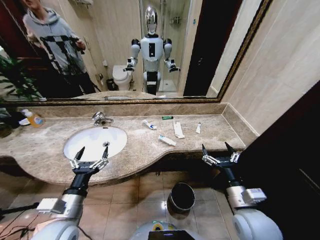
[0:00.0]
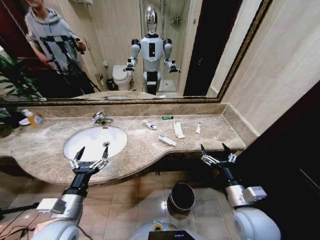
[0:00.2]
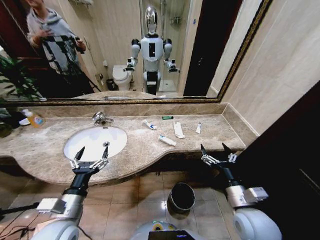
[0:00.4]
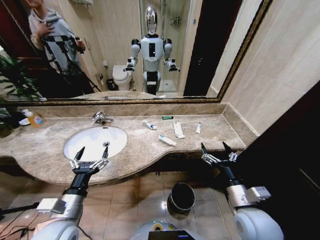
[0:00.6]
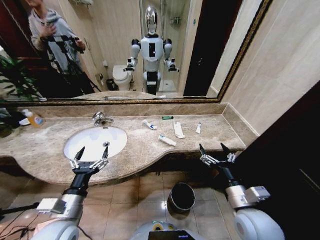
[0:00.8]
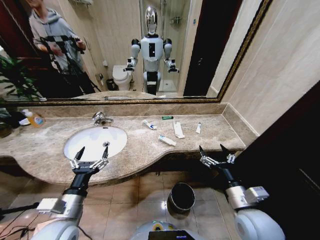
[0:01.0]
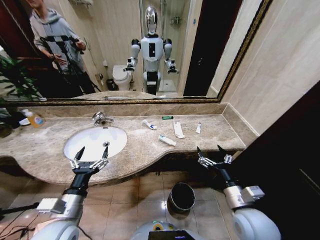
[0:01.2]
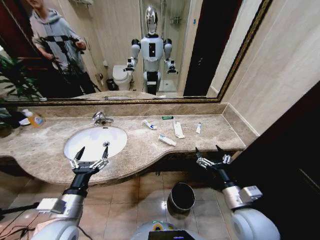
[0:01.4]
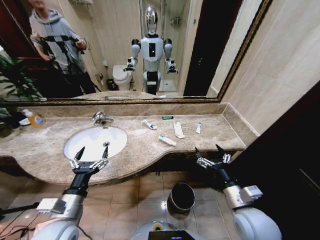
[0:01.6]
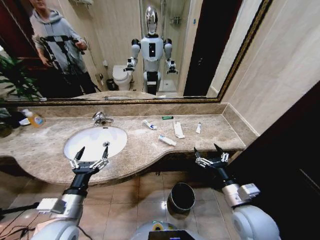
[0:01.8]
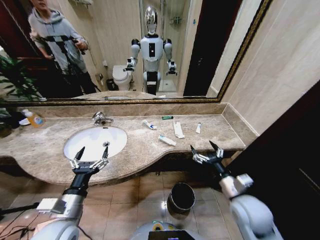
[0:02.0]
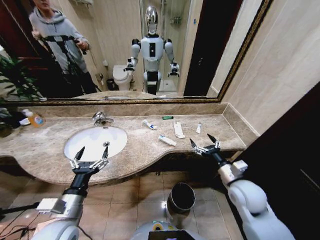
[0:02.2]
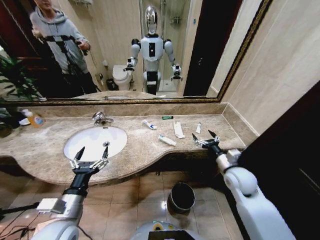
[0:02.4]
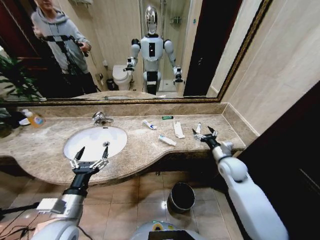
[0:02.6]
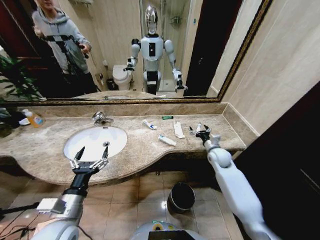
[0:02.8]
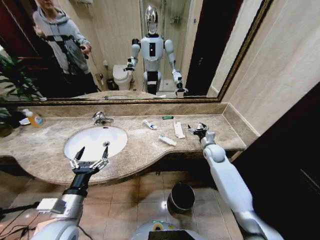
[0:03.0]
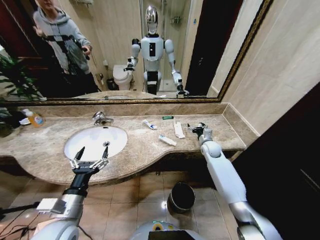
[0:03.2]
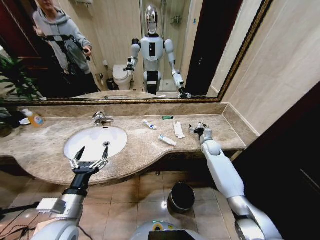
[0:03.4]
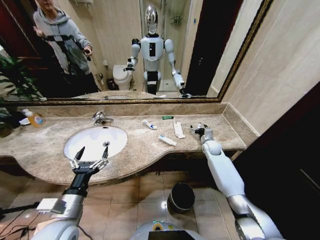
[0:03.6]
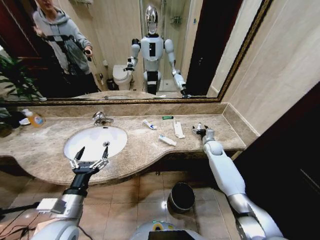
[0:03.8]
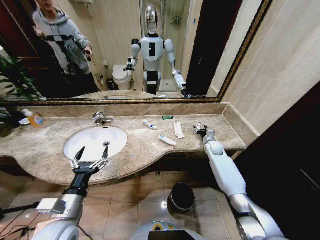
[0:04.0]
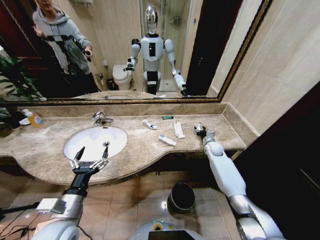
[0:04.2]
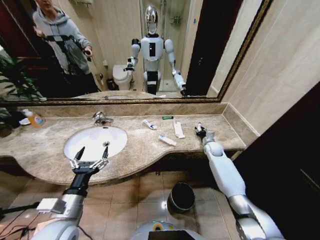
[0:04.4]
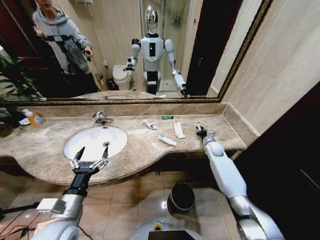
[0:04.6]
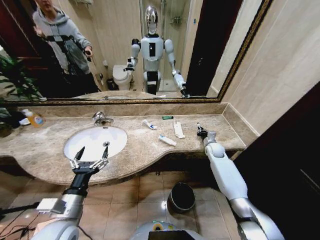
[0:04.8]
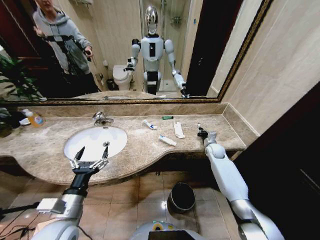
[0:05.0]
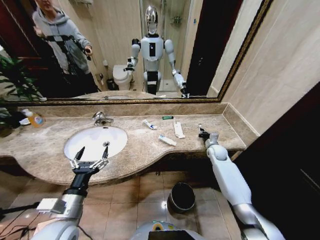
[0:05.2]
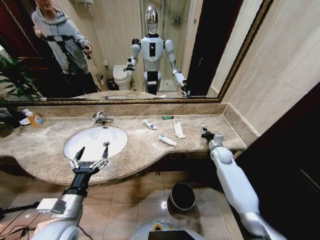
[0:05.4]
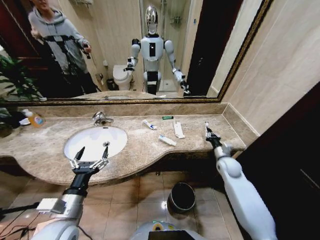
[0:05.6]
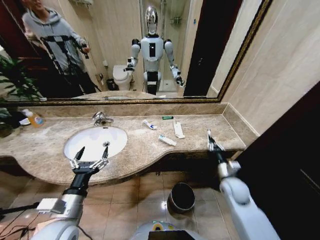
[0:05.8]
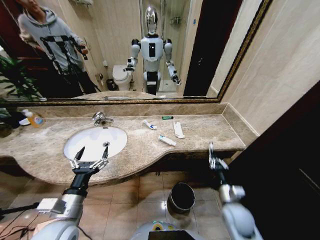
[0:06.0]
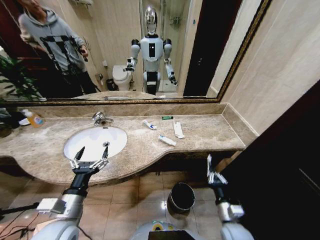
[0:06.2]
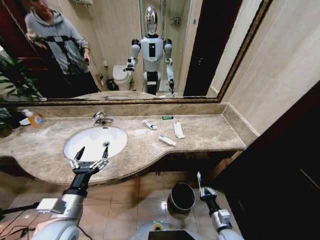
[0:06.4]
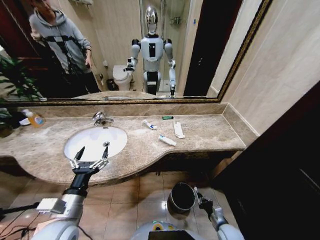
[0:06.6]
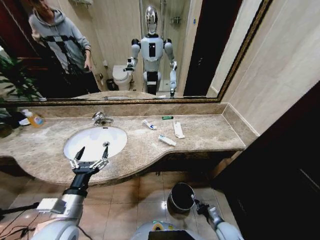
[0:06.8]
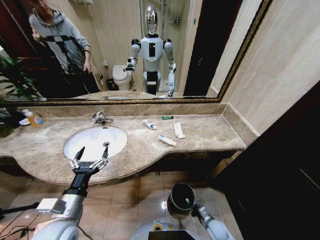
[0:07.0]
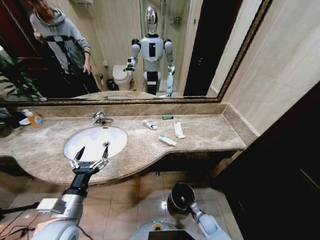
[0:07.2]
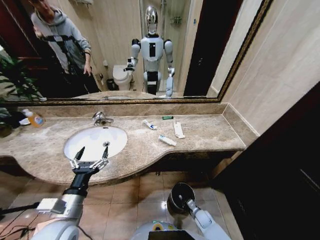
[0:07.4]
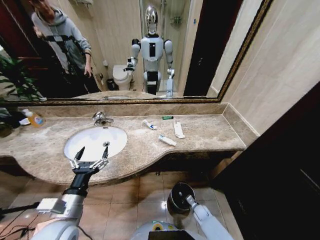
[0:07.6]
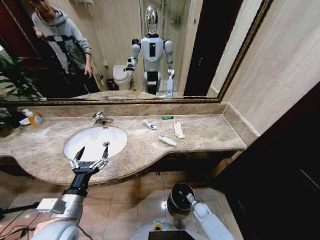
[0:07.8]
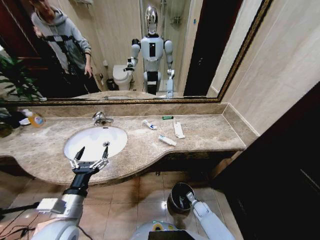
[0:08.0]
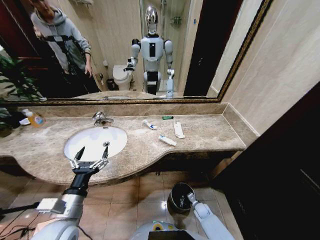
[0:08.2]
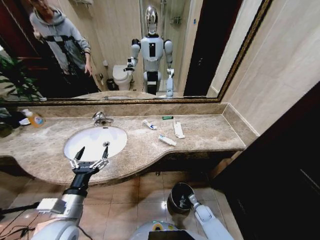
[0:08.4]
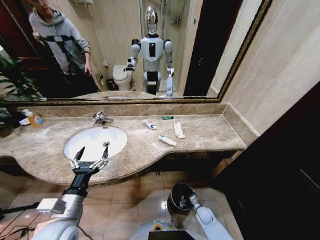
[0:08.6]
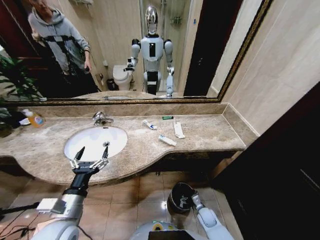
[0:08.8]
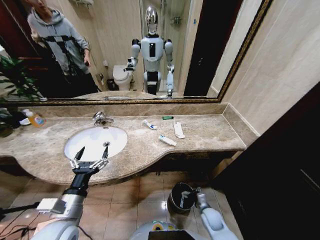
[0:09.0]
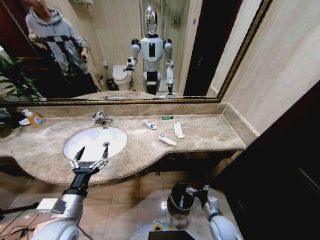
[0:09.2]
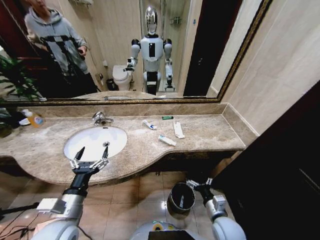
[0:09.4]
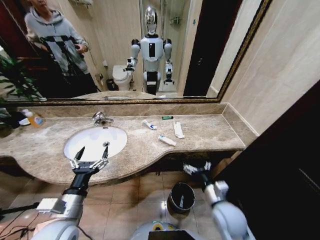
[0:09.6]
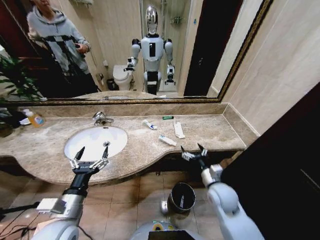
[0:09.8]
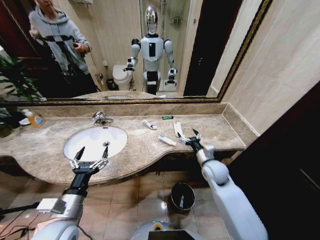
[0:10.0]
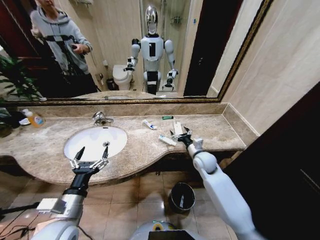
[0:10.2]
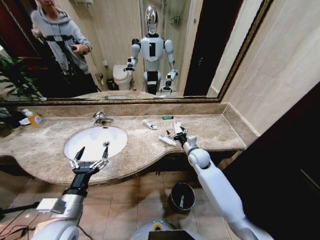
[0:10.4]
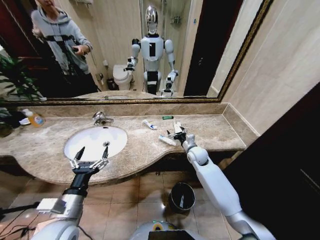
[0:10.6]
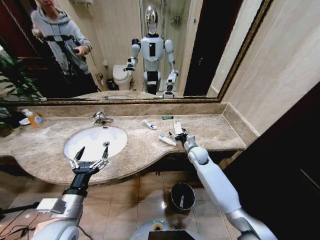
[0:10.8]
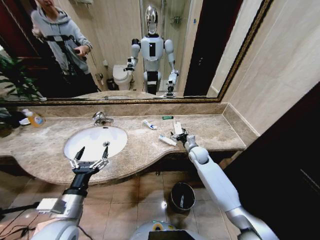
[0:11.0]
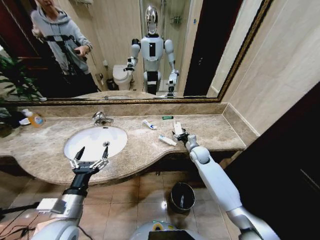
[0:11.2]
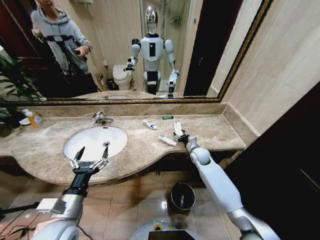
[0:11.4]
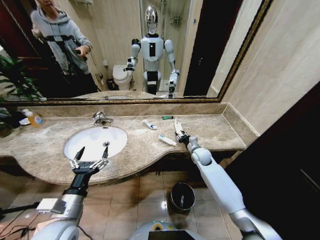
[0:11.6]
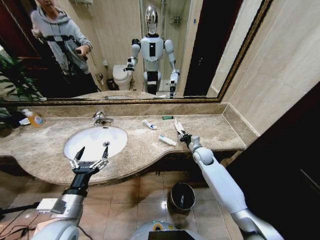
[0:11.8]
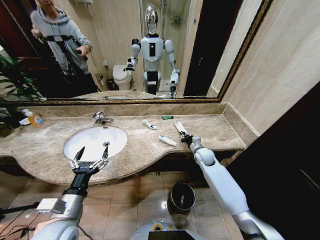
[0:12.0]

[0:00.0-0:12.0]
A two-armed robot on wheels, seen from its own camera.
Task of the whole recording: Pick up the trash from the sink and place it in the trash bin.
0:01.6 to 0:03.0: The right gripper travels forward by about 30 cm.
0:03.0 to 0:04.4: The right gripper changes place by approximately 5 cm, and closes its fingers.
0:04.4 to 0:06.0: The right gripper is displaced backward by roughly 30 cm, and closes.
0:06.0 to 0:07.6: The right gripper travels downward by about 30 cm.
0:07.6 to 0:09.0: The right gripper moves upward, some 10 cm, and opens up.
0:09.0 to 0:10.4: The right gripper goes about 30 cm upward and forward.
0:10.4 to 0:12.0: The right gripper is displaced to the right by approximately 5 cm, and closes up.

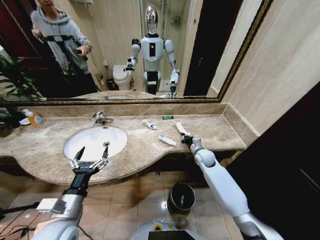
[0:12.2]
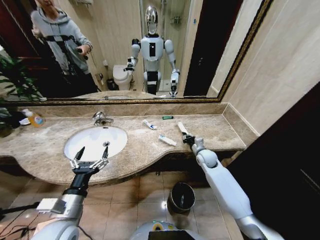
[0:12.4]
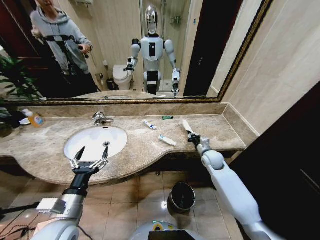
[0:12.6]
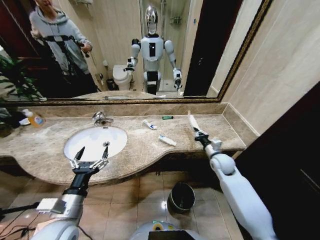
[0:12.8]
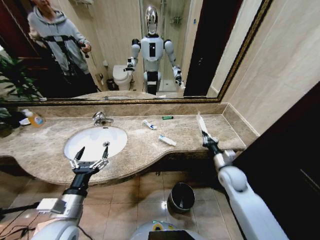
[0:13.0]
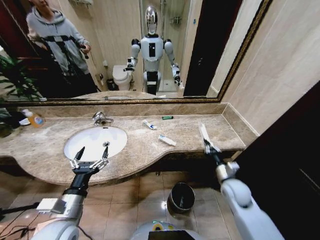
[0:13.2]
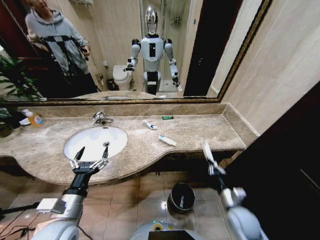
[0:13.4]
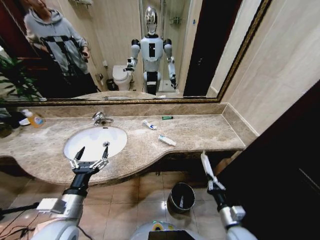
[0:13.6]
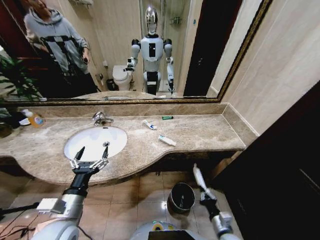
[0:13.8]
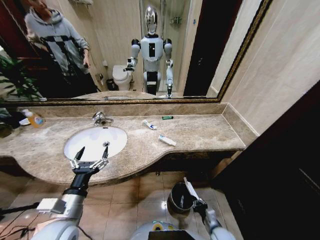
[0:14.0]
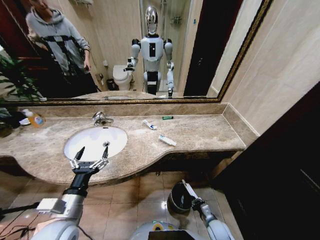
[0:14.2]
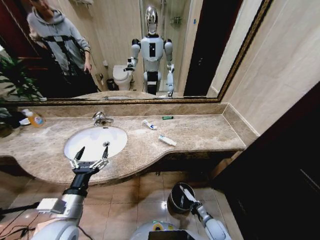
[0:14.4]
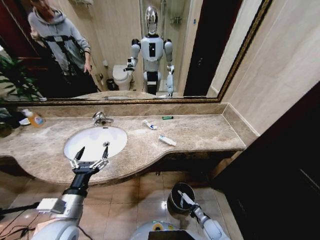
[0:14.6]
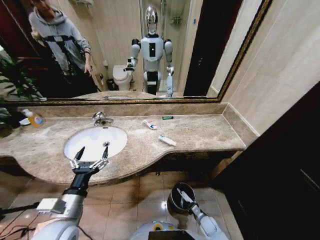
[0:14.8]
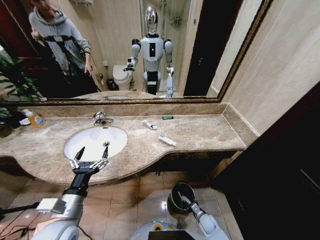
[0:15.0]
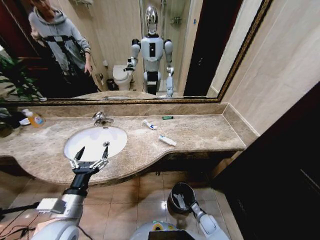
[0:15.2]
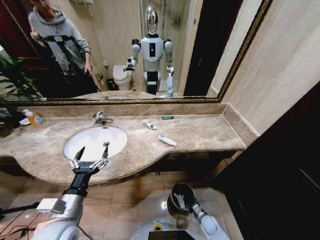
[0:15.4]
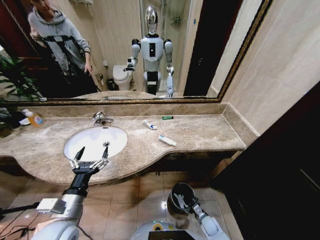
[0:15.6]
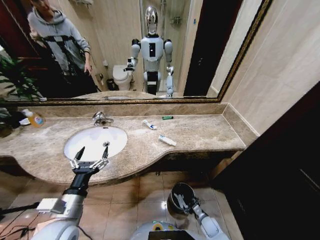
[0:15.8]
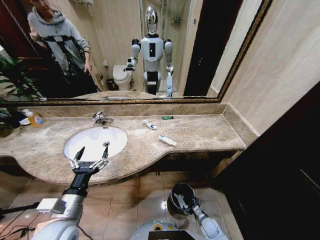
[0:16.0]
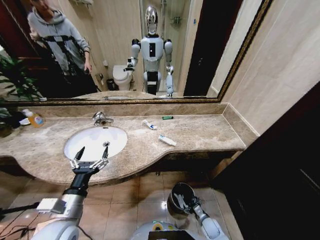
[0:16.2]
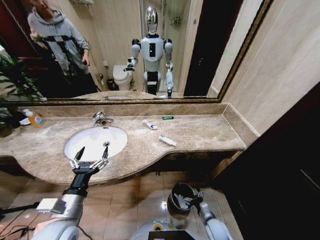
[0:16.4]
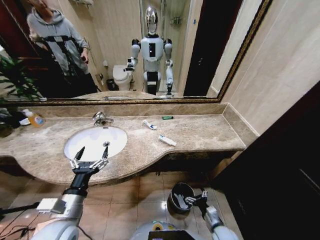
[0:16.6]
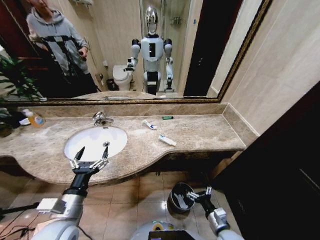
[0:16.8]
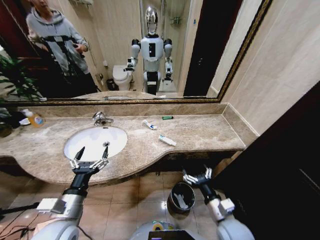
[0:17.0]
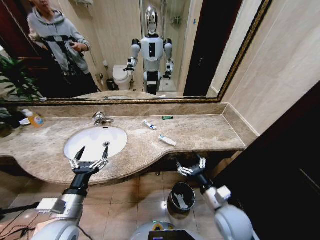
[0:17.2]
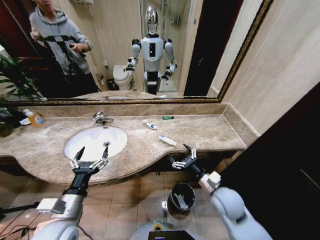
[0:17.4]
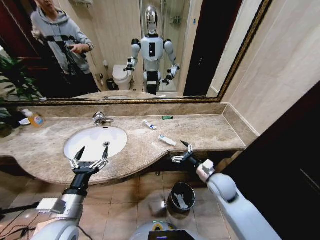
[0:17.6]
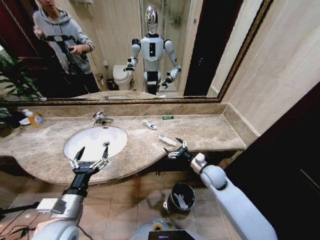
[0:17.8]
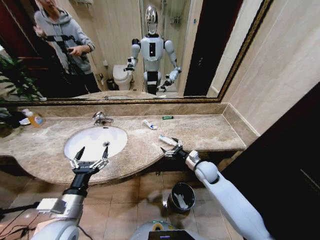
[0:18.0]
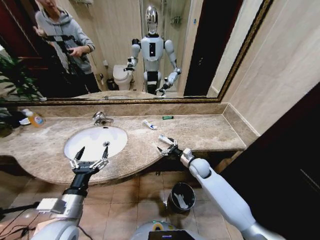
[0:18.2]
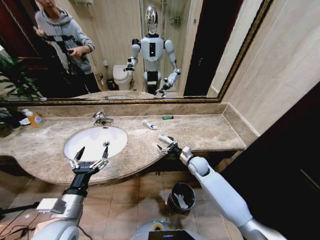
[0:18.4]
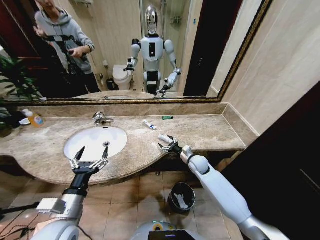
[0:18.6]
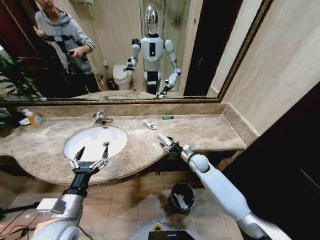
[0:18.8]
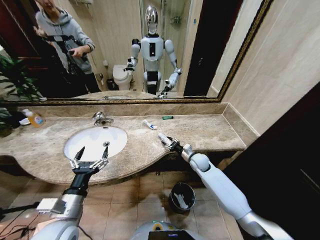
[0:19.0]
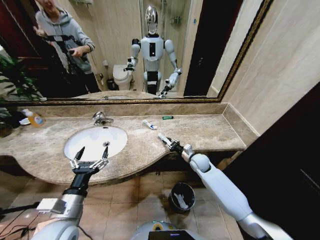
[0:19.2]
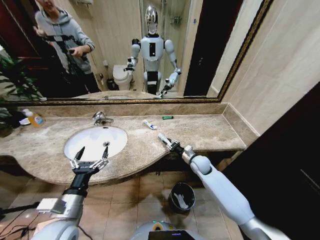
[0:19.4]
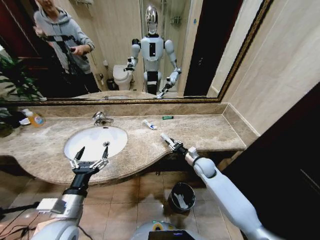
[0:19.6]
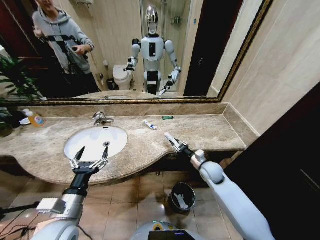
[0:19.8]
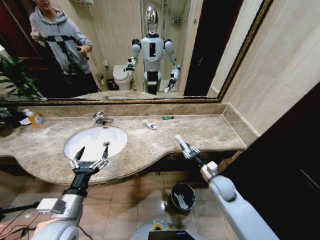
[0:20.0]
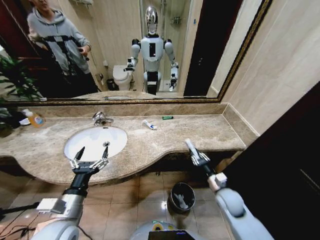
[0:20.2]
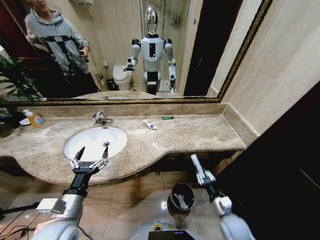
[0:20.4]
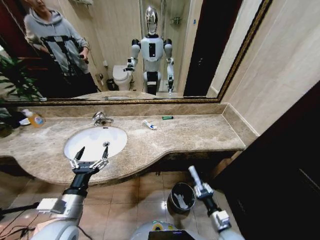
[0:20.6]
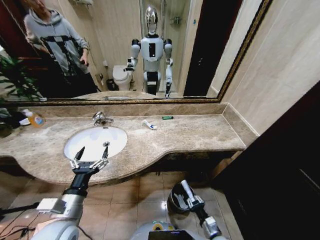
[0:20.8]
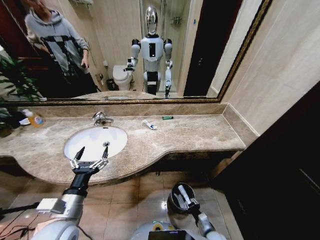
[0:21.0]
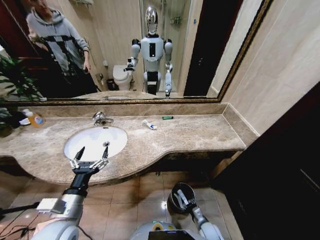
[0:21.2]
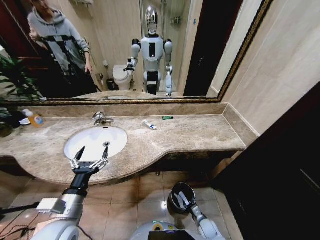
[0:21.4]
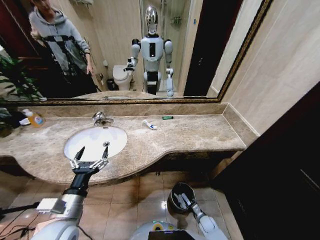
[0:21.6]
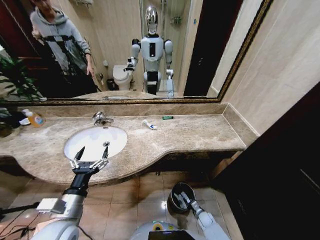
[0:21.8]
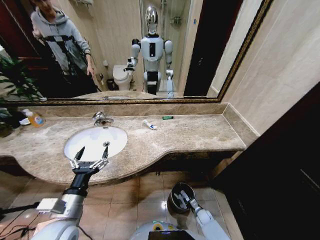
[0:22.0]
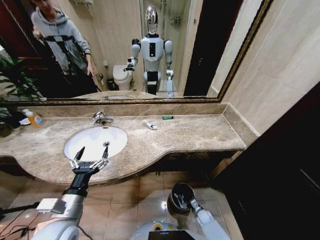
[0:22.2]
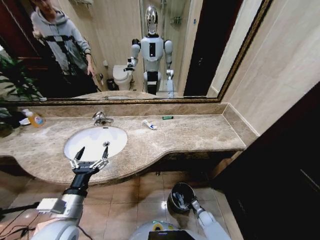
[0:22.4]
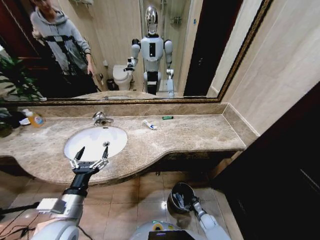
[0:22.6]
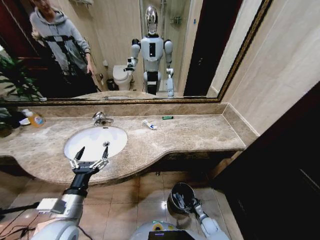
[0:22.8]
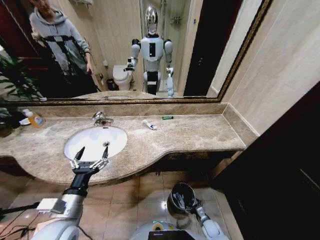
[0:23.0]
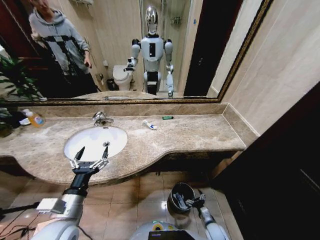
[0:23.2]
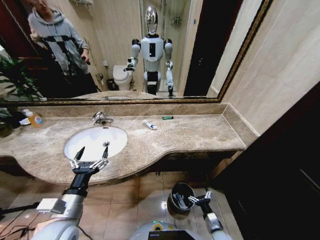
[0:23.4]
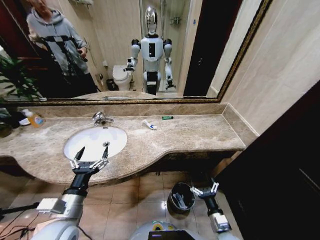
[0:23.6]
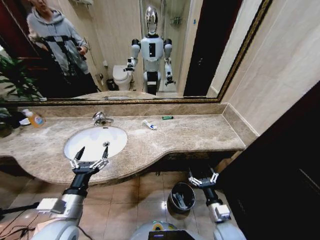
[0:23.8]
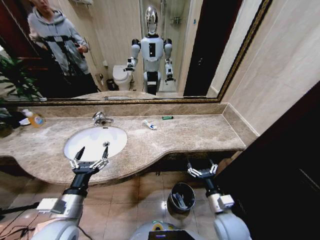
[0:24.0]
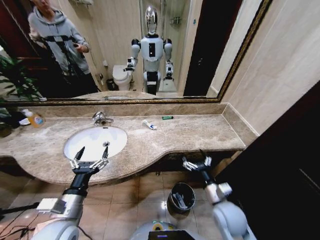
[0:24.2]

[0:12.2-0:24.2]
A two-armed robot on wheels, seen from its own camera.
Task of the whole recording: Pick up the trash from the sink and place it in the trash bin.
0:12.2 to 0:13.8: The right gripper moves backward, roughly 35 cm.
0:13.8 to 0:15.2: The right gripper heads downward and forward, covering about 20 cm, and opens.
0:15.2 to 0:16.6: The right gripper is displaced upward and backward by roughly 15 cm, and opens.
0:16.6 to 0:18.2: The right gripper is displaced forward and upward by some 30 cm.
0:18.2 to 0:19.8: The right gripper ends up roughly 5 cm from where it was, and closes.
0:19.8 to 0:21.2: The right gripper shifts approximately 30 cm downward and backward.
0:21.2 to 0:22.6: The right gripper goes roughly 10 cm downward and forward, and opens its fingers.
0:22.6 to 0:24.2: The right gripper is displaced upward by approximately 35 cm.
